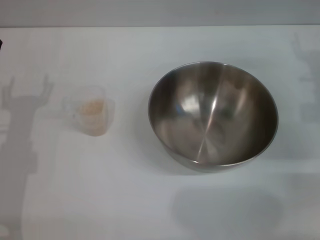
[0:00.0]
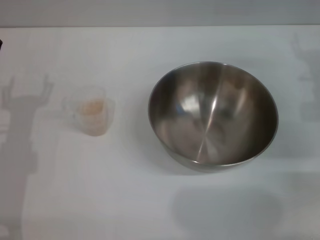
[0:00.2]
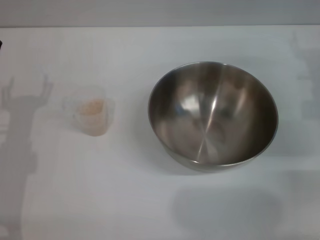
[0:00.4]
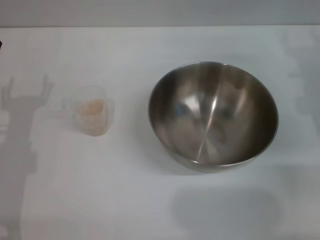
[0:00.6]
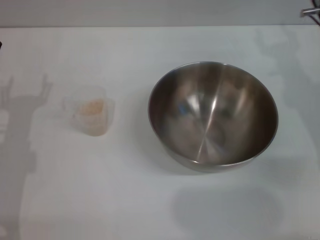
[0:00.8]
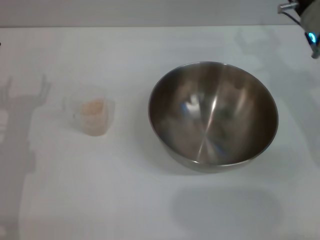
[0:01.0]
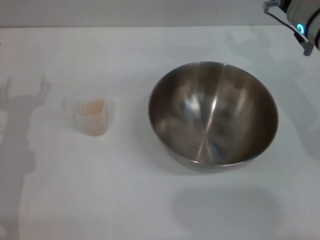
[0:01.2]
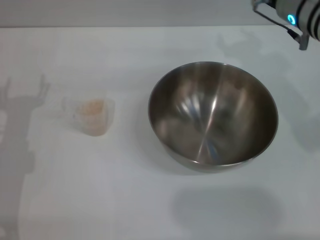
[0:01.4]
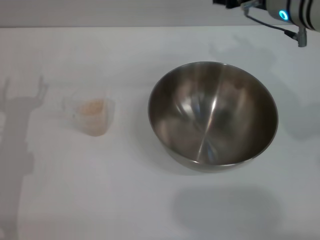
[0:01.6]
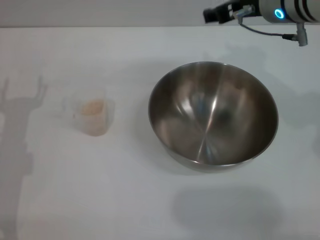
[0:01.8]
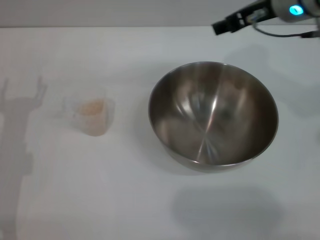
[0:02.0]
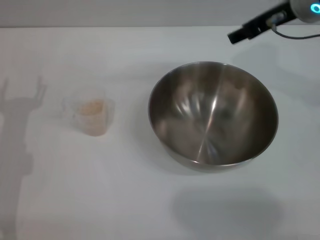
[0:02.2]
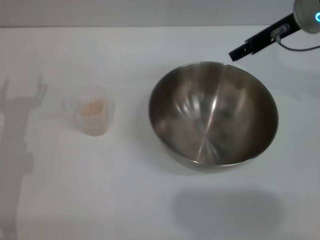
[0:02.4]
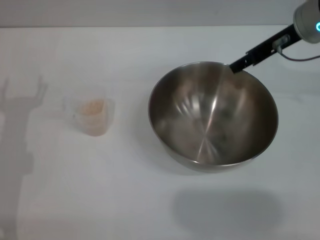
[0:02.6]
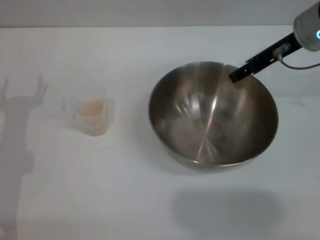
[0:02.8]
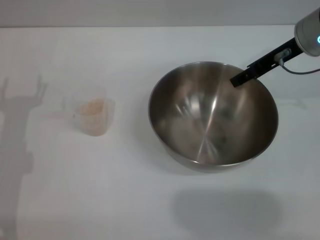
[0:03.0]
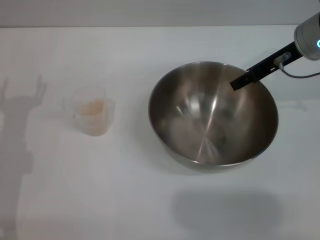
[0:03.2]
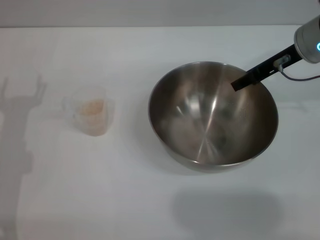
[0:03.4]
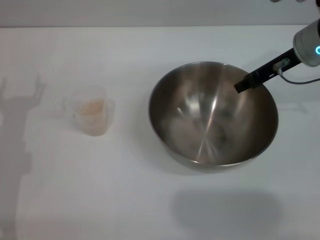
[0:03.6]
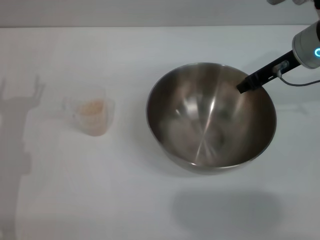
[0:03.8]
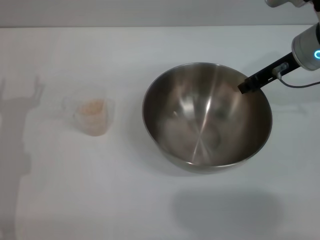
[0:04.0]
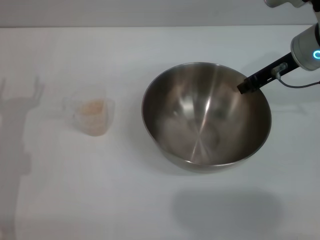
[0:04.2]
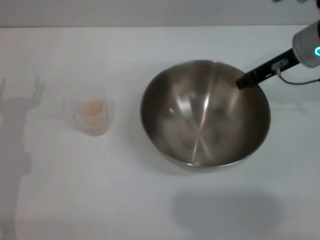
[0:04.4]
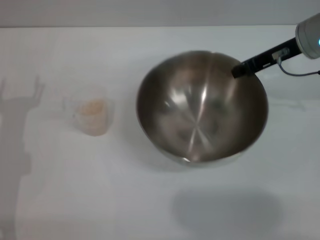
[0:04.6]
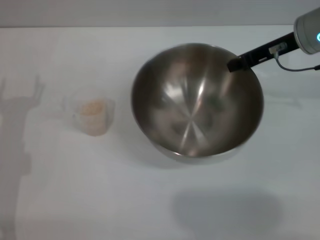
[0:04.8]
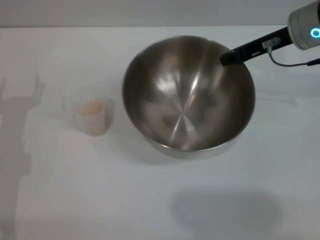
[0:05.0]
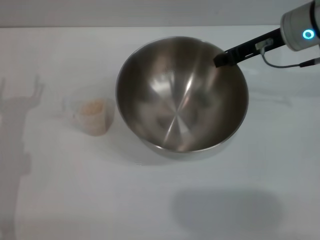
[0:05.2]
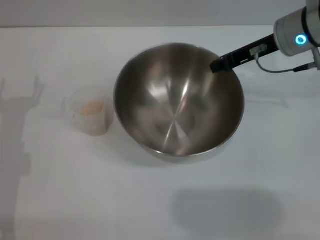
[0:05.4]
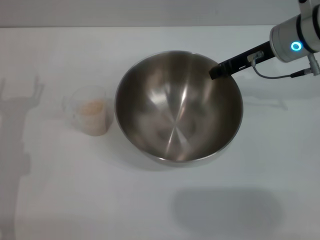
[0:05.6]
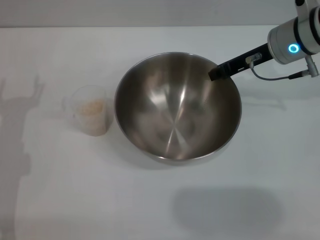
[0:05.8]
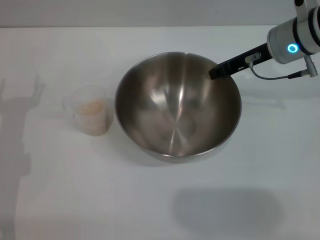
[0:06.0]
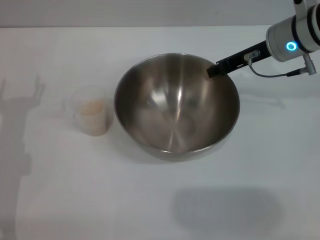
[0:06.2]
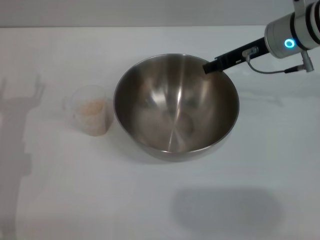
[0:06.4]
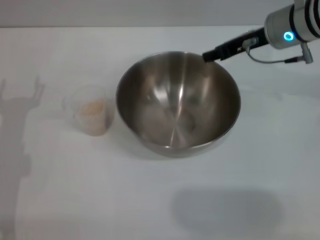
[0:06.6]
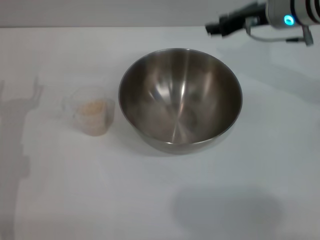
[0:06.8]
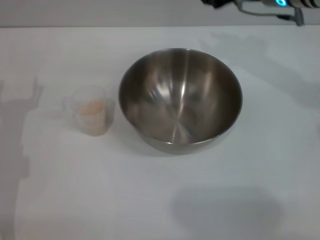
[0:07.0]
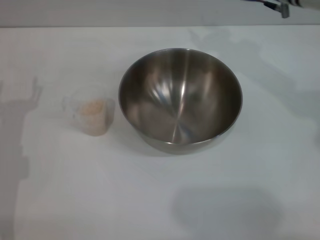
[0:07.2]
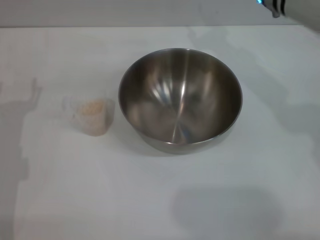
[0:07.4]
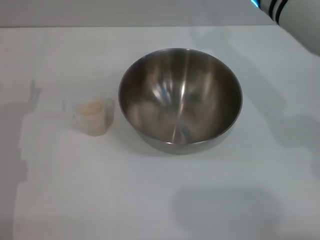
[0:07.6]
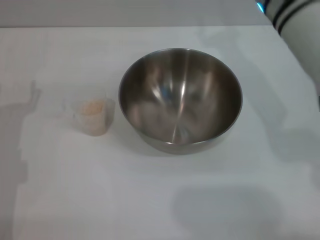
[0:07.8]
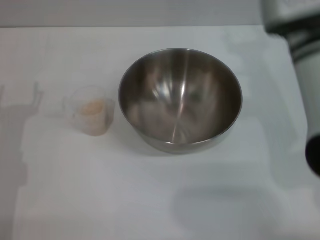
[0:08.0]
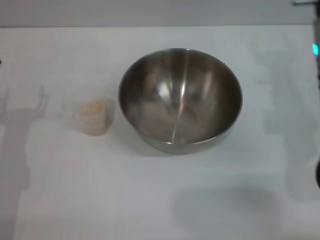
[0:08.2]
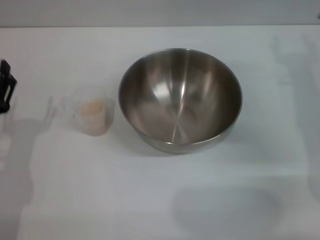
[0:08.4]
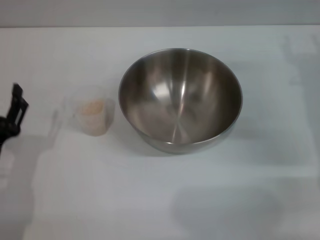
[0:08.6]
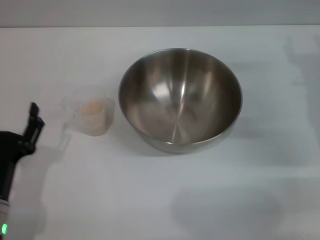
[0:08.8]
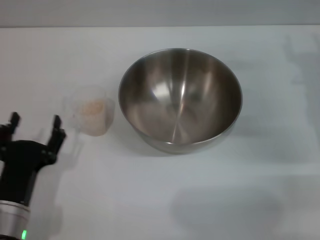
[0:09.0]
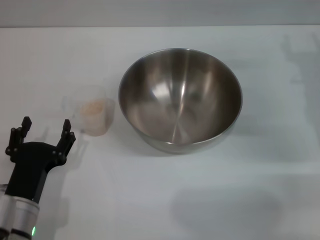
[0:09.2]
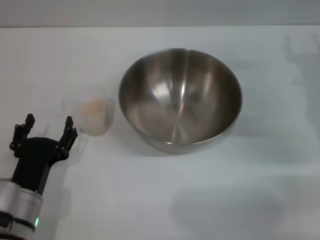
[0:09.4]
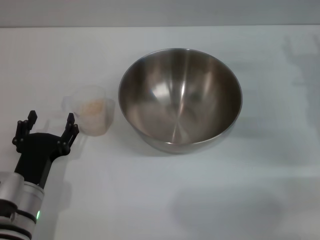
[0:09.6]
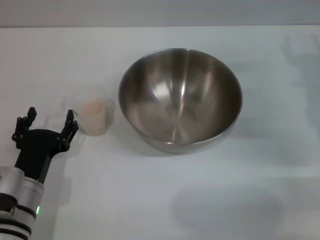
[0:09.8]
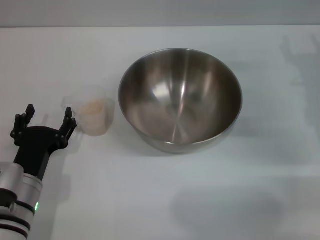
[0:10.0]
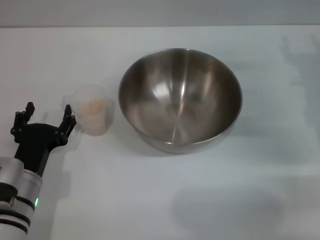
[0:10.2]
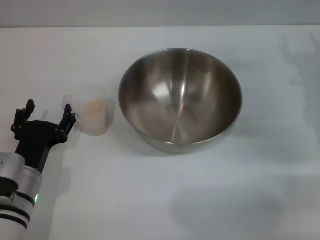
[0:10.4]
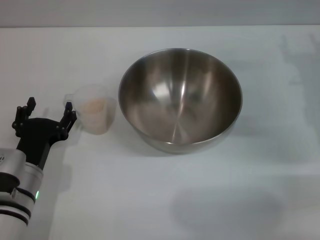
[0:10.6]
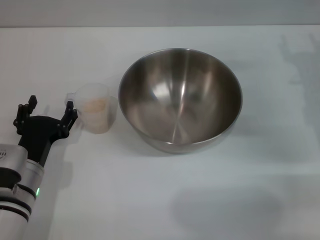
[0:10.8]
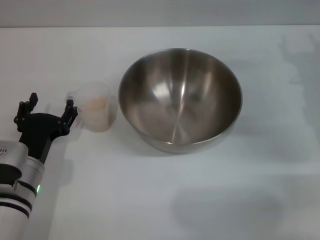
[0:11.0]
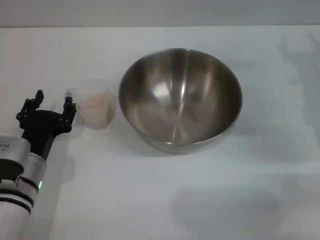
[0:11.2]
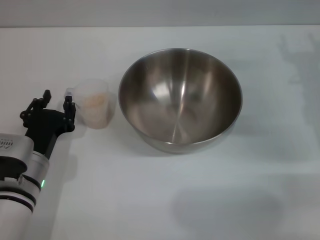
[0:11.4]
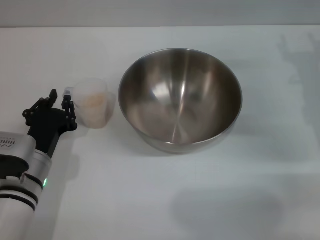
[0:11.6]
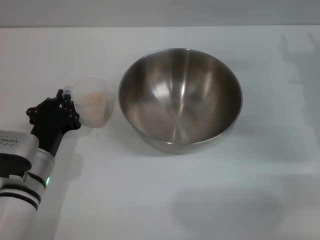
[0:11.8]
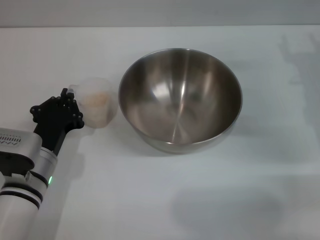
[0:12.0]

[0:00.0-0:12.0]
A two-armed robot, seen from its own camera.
Task of the whole recording: Place the bowl in the middle of the table with one hand and pour the rice from the grain cup into it with the other hand.
Step, 0:00.0 to 0:05.0: Pick up the bowl with the right gripper.
Step, 0:05.2 to 0:06.6: Place the bowl in the center of view with the right gripper.
0:00.0 to 0:01.6: The right gripper goes about 15 cm to the left and upward.
0:01.6 to 0:03.0: The right gripper is displaced to the right by about 5 cm.
0:03.0 to 0:04.4: The right gripper closes up.
0:06.0 to 0:07.6: The right gripper is displaced to the left by about 5 cm, and opens up.
0:07.6 to 0:09.0: The left gripper goes about 10 cm backward and to the right. The right gripper goes approximately 15 cm to the right and downward, and opens.
0:09.0 to 0:10.4: The left gripper is displaced forward by some 5 cm.
0:10.4 to 0:12.0: The left gripper closes.

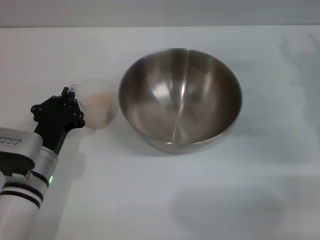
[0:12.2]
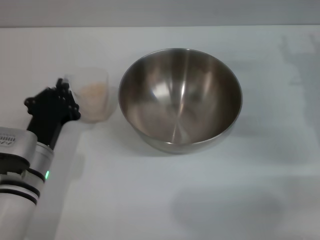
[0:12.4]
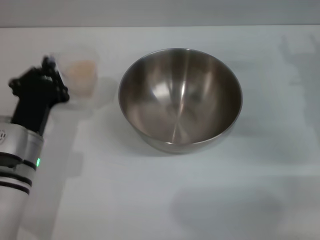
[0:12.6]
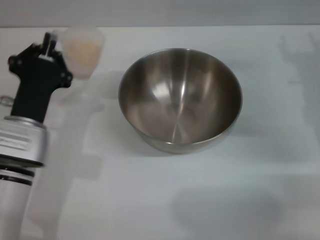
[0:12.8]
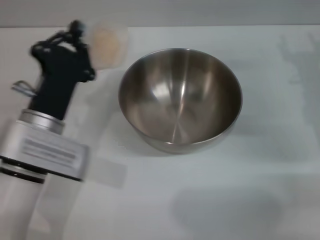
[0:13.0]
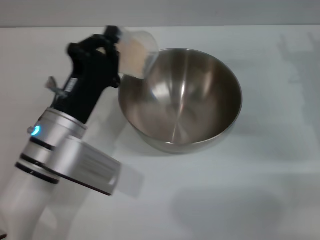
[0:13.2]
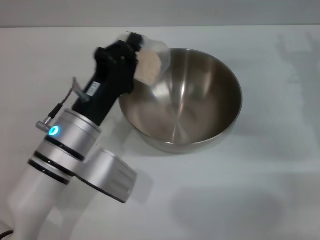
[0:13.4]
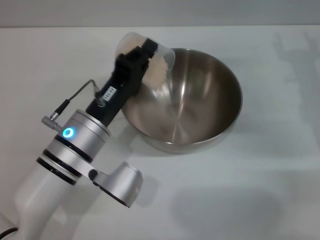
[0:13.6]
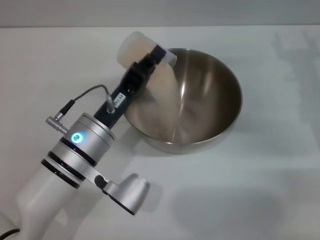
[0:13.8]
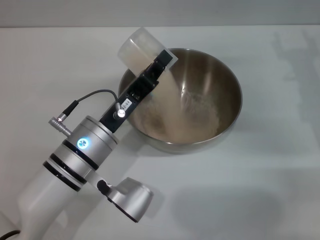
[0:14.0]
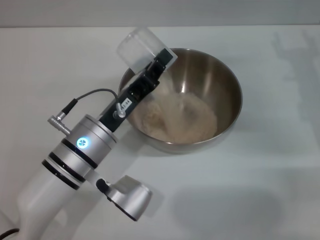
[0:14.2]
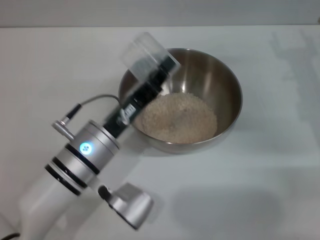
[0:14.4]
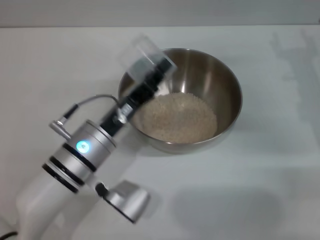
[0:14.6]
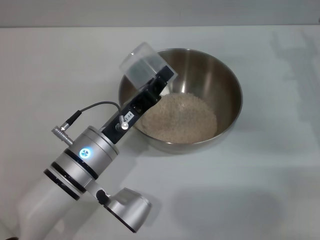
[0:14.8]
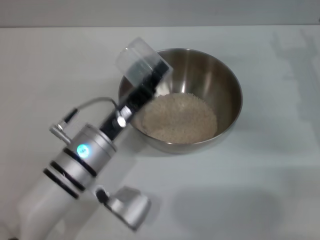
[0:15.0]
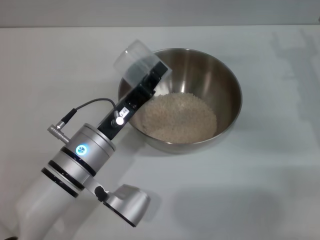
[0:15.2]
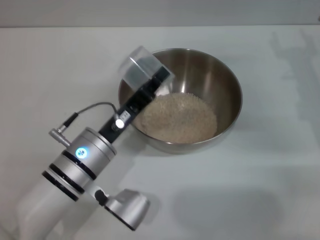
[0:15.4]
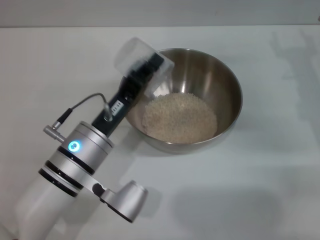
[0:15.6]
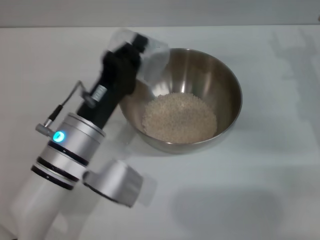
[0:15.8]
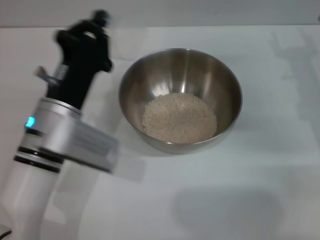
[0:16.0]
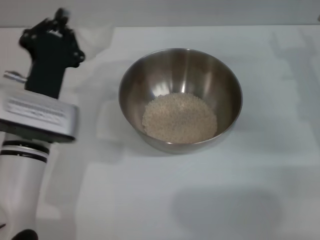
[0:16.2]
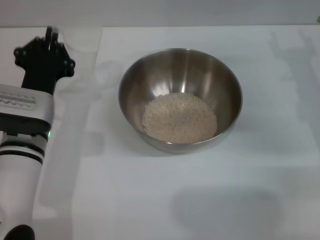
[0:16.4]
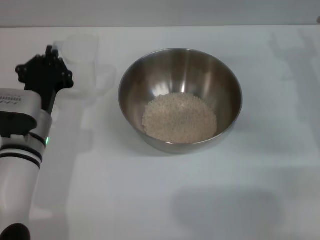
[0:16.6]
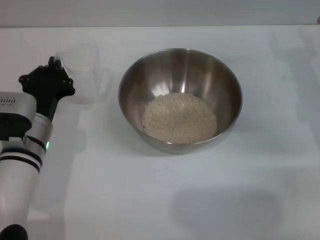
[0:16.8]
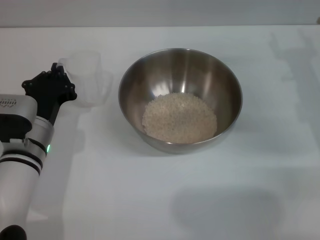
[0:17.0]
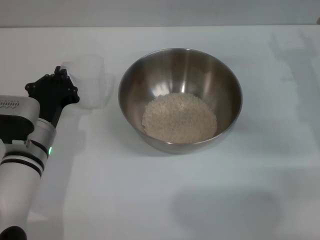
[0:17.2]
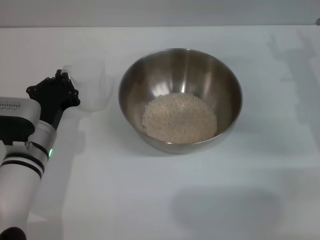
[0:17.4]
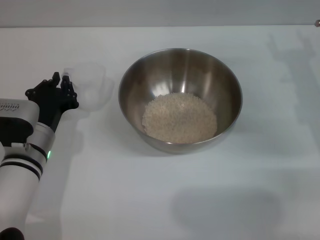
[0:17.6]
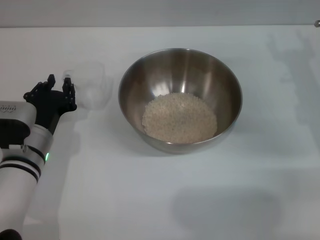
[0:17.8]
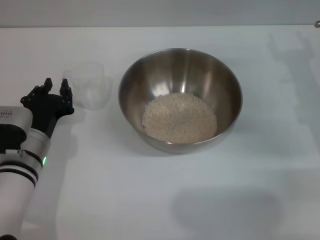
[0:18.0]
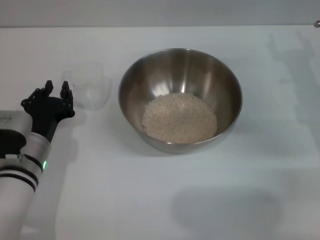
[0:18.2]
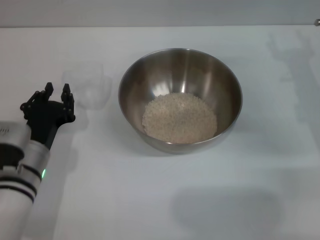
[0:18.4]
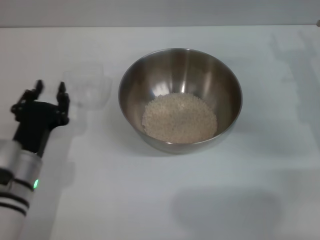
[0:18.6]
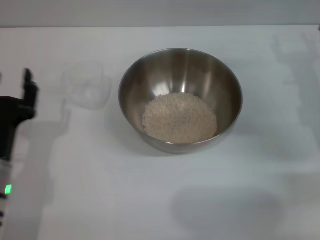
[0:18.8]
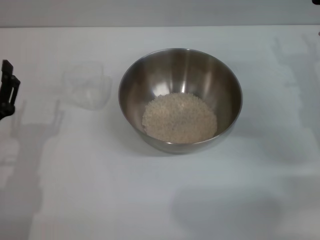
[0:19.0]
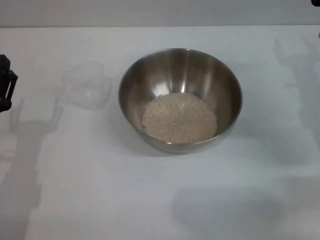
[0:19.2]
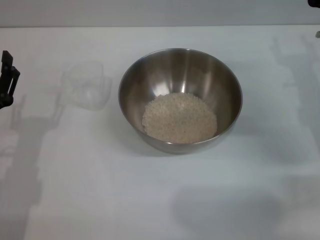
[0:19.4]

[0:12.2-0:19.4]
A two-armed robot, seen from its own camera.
Task of the whole recording: Place the bowl in the middle of the table with one hand and pour the rice from the grain cup into it with the other hand.
Step, 0:12.8 to 0:15.4: Pour the rice from the cup into the bowl with the left gripper.
Step, 0:15.6 to 0:18.2: Place the cup on the table with the left gripper.
0:12.2 to 0:13.6: The left gripper moves to the right and upward, some 10 cm.
0:15.0 to 0:16.6: The left gripper moves to the left, about 5 cm.
0:16.6 to 0:18.0: The grippers move only a little.
0:18.0 to 0:19.4: The left gripper moves backward, approximately 5 cm, and opens its fingers.
